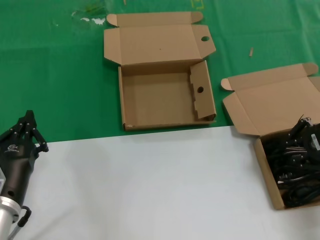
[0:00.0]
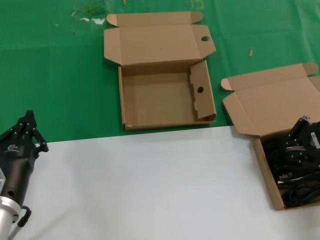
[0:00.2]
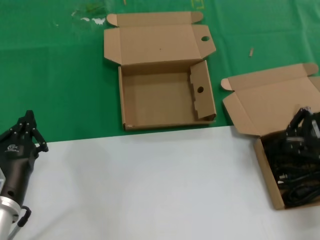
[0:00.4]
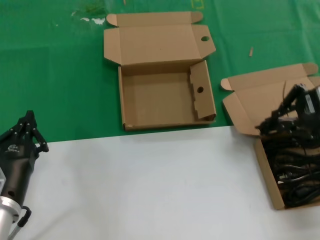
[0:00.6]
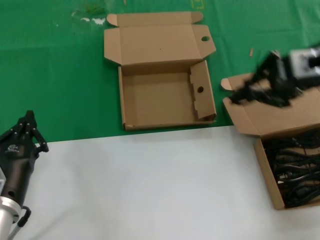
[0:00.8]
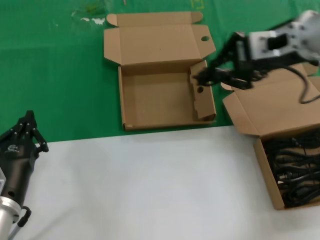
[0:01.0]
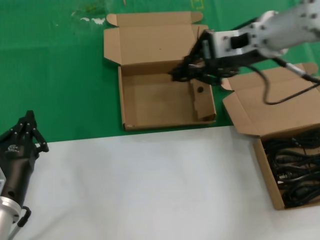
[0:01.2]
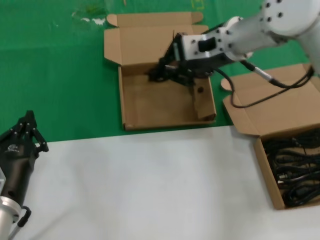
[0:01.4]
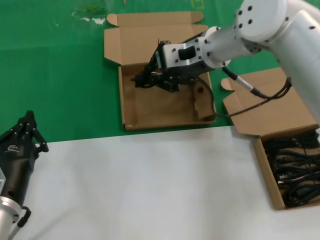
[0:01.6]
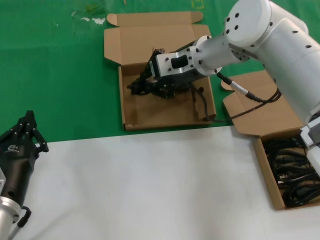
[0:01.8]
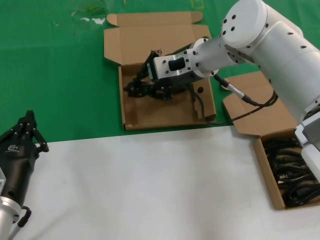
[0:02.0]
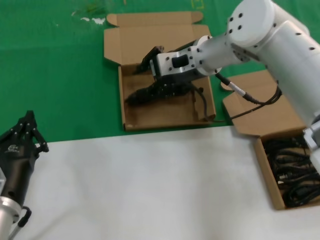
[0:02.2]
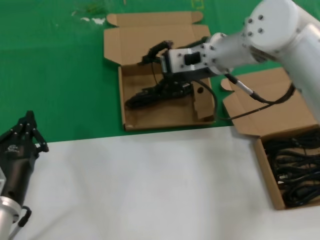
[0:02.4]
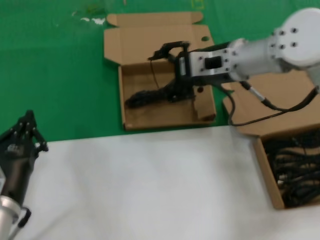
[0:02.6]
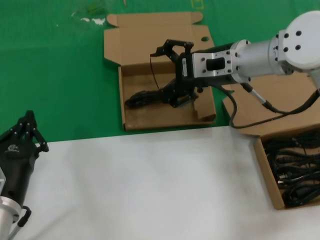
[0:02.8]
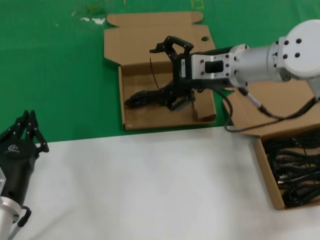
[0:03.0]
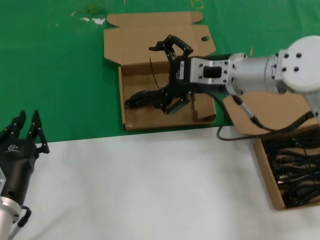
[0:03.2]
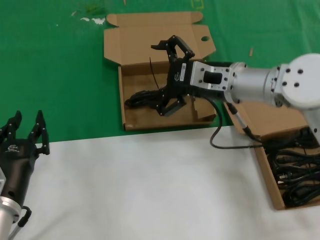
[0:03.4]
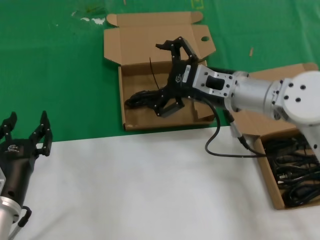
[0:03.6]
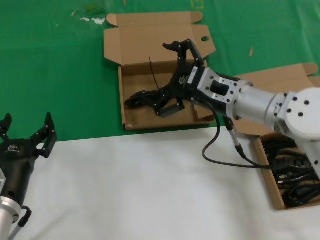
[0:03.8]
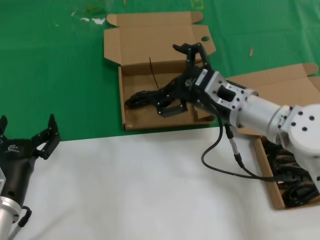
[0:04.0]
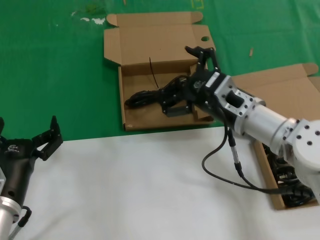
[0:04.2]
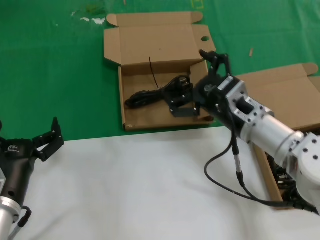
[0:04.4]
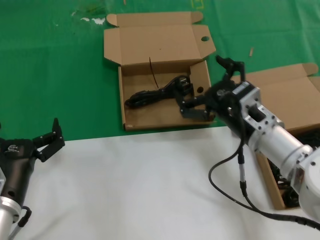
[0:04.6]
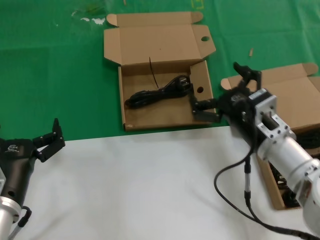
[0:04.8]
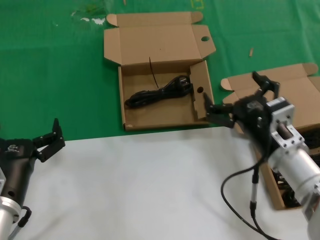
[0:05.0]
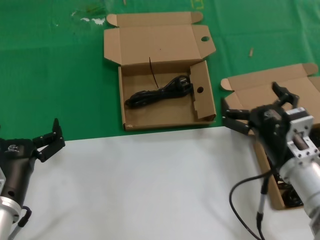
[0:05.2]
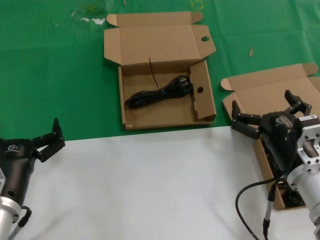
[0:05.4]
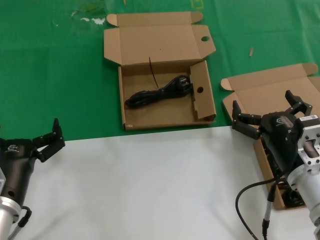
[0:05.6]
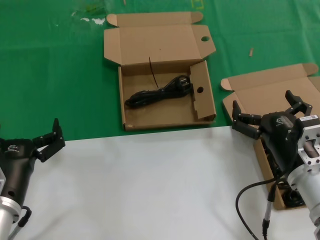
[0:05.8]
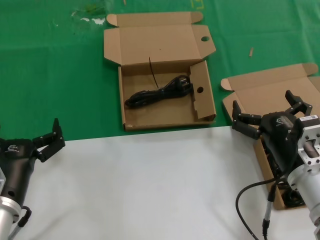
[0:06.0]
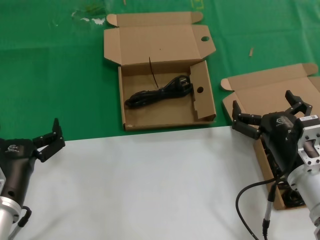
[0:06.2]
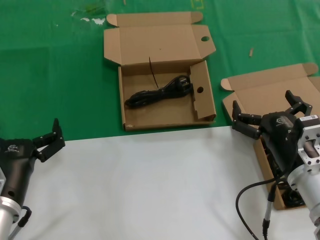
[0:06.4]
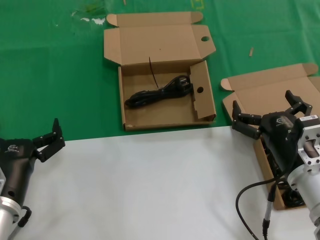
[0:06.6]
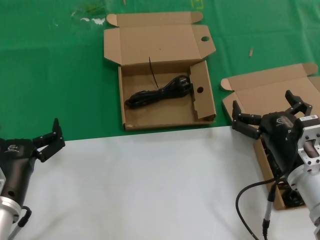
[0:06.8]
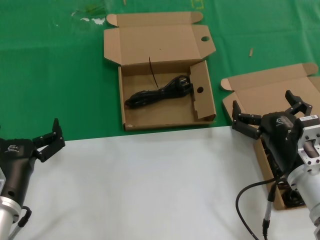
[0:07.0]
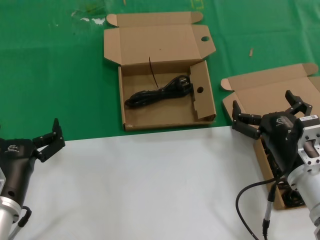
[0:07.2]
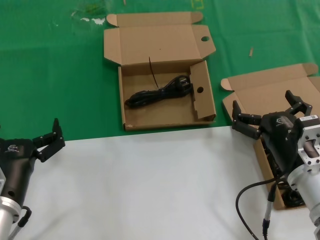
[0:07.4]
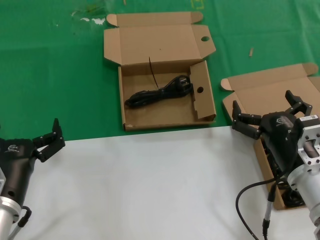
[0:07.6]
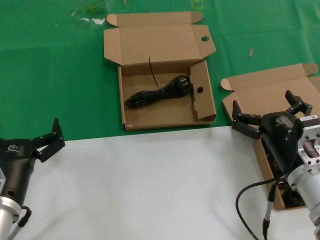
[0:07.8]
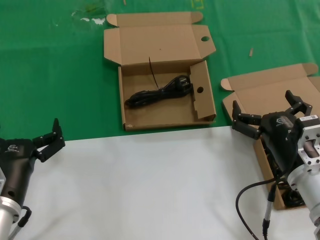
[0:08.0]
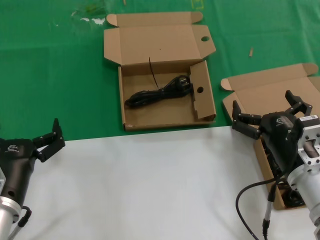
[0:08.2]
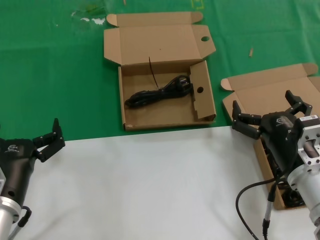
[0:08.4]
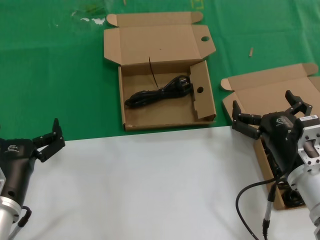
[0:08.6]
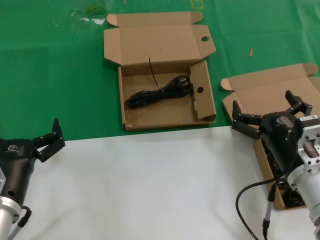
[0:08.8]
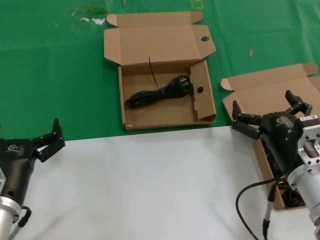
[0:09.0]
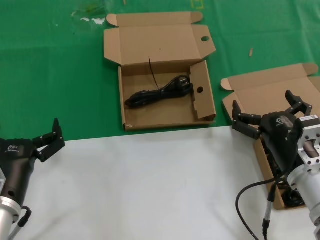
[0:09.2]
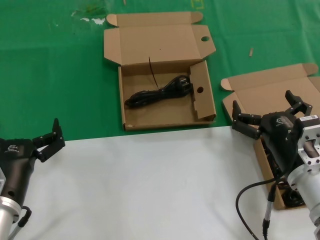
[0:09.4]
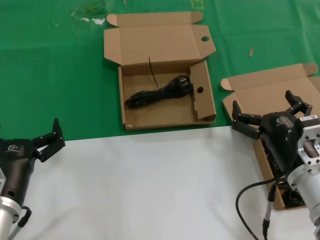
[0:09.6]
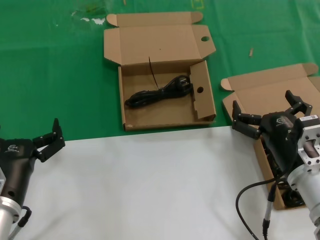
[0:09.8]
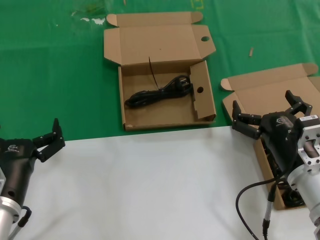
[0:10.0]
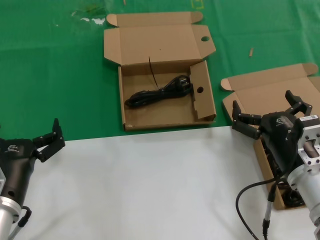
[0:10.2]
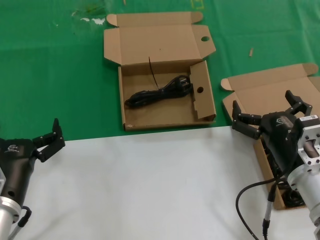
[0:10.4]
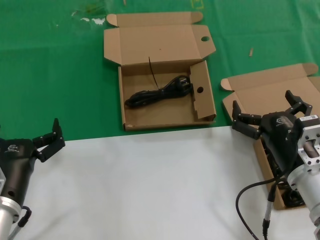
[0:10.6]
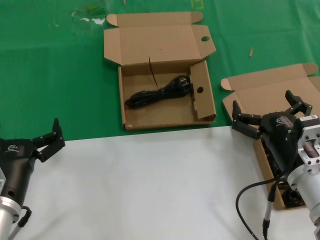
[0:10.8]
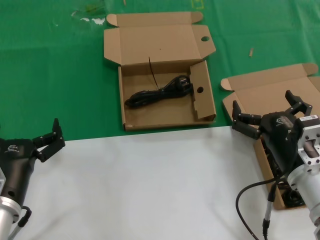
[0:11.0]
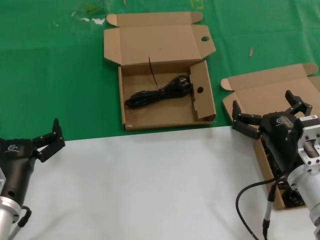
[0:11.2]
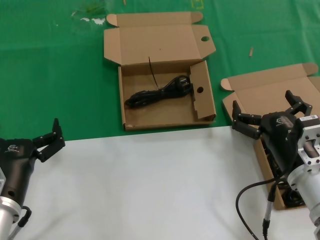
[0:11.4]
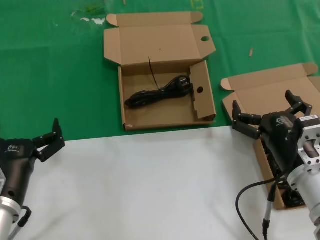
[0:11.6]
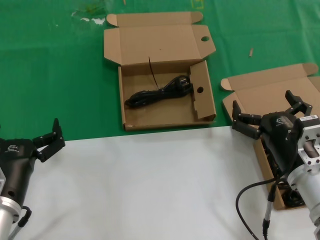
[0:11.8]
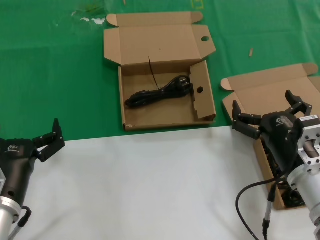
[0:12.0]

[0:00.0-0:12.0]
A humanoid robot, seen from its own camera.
Task of the whole recording: take the parts from the box containing them and put them into an empty box.
Step, 0:00.2 to 0:02.2: Place the data cable in the another box.
0:00.0 to 0:01.6: The right hand shifts about 30 cm to the left and forward.
0:01.6 to 0:03.0: The right hand ends up approximately 5 cm from where it was.
0:03.0 to 0:04.4: The right hand shifts some 15 cm downward and backward.
0:04.4 to 0:06.0: The right hand heads backward and downward, covering approximately 10 cm.
0:06.0 to 0:12.0: Neither hand changes place.

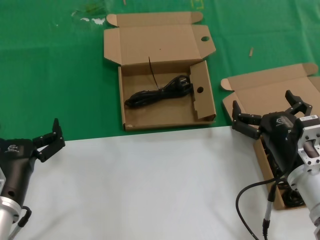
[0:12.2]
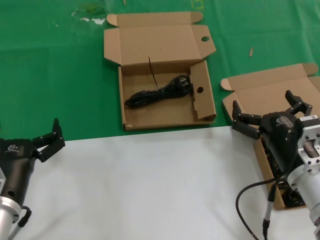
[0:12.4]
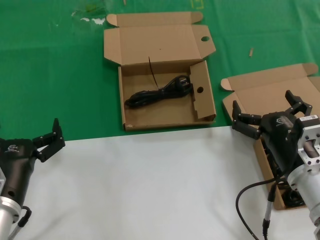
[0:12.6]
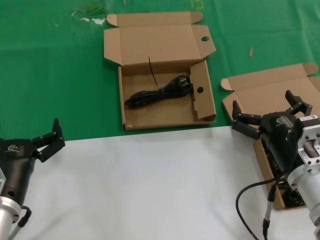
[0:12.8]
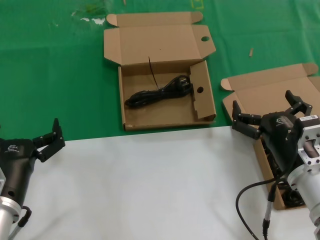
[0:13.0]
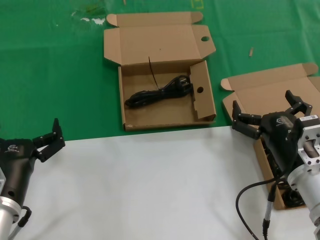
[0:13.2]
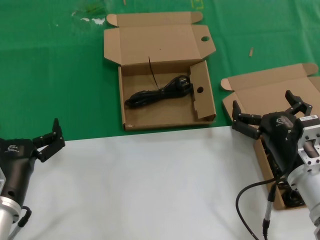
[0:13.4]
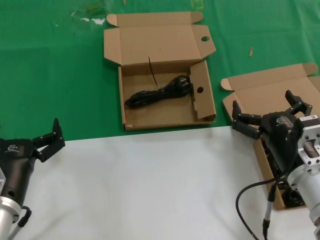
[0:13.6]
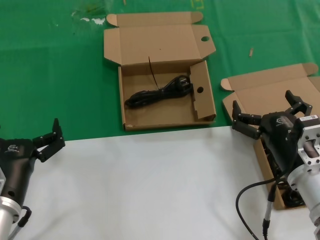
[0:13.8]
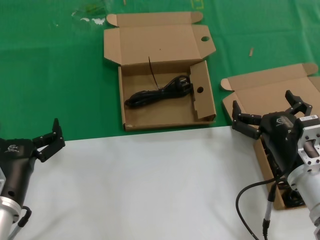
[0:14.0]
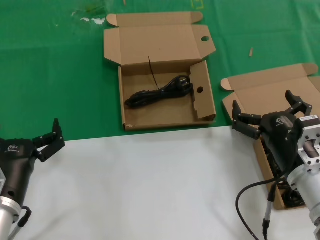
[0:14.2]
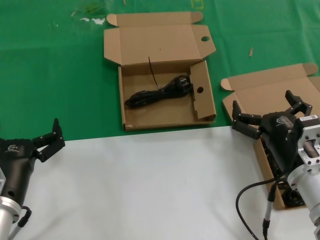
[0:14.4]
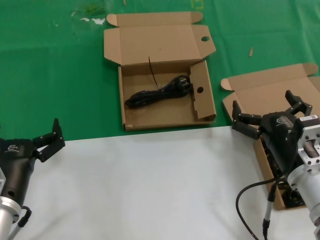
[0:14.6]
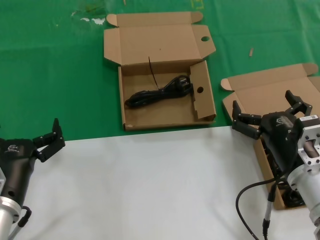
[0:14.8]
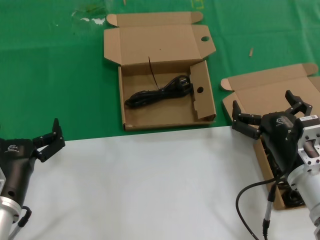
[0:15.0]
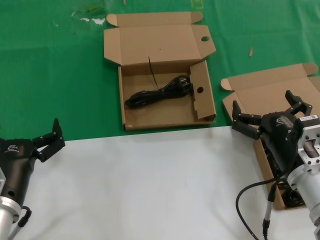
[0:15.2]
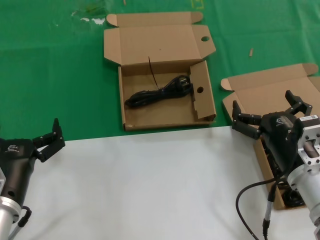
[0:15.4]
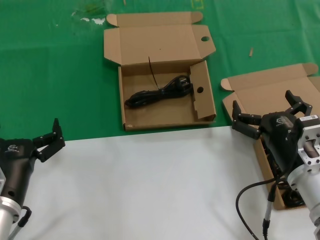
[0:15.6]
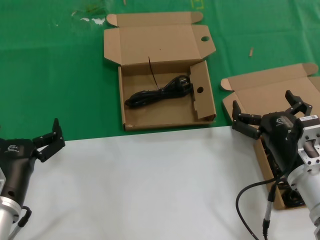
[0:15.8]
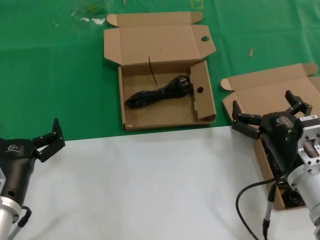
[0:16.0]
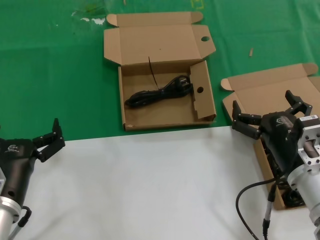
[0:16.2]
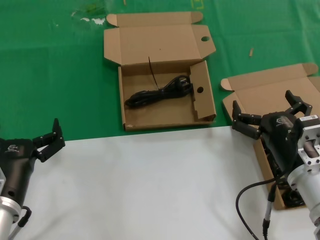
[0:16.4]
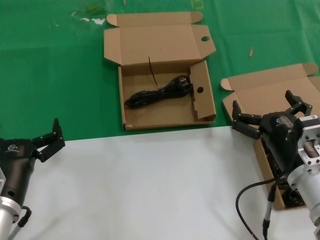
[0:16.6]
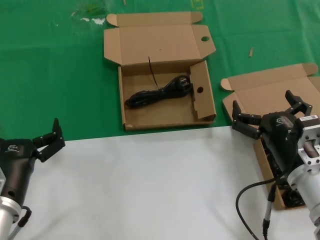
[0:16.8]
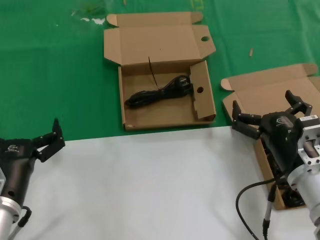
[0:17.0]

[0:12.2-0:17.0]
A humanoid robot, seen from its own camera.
Task of the whole recording: take the parts from the box containing them and put them into an empty box.
0:12.2 to 0:17.0: Both hands stay put.

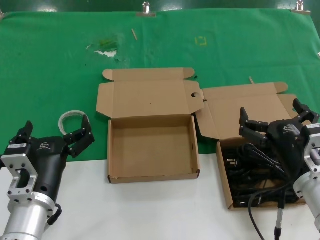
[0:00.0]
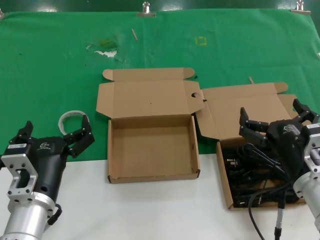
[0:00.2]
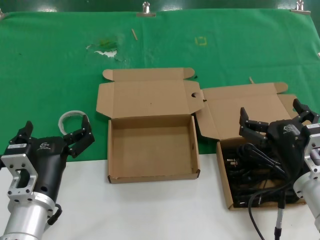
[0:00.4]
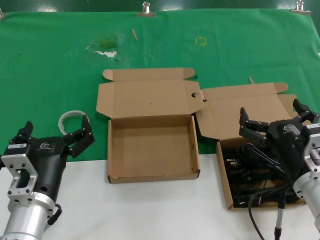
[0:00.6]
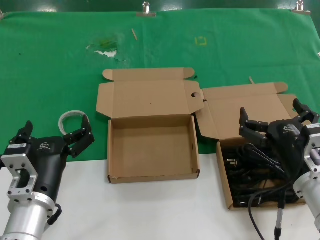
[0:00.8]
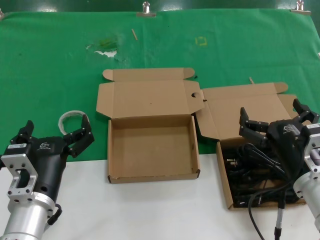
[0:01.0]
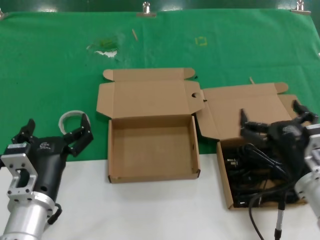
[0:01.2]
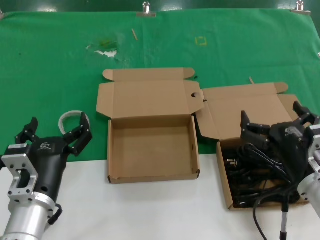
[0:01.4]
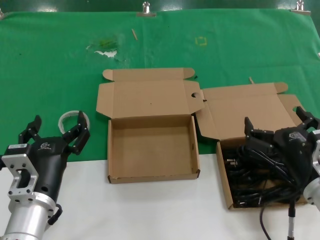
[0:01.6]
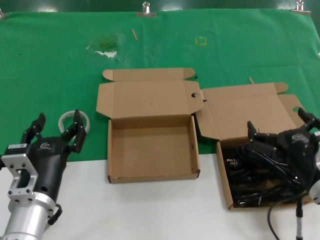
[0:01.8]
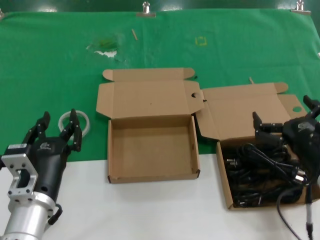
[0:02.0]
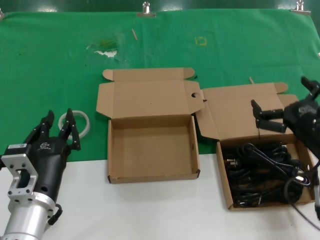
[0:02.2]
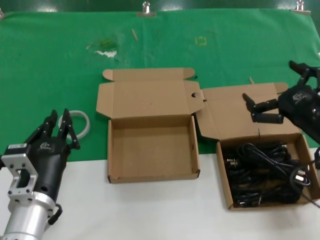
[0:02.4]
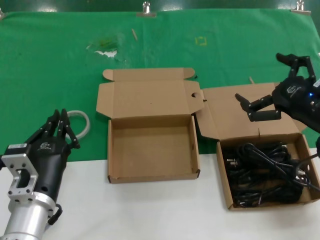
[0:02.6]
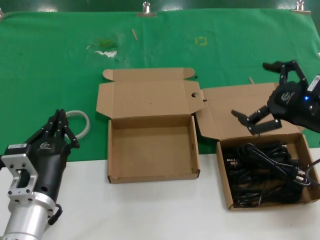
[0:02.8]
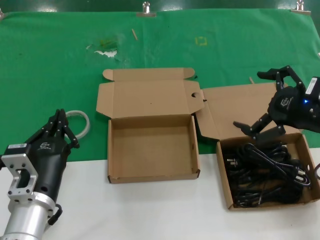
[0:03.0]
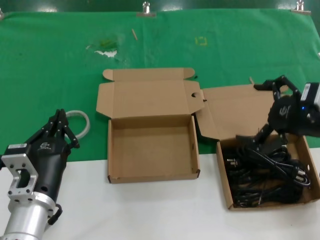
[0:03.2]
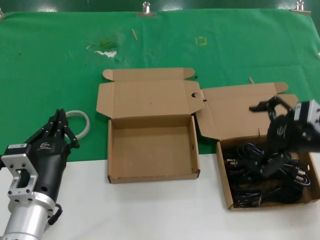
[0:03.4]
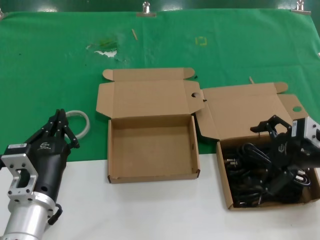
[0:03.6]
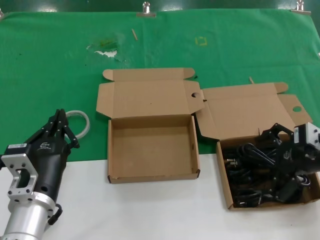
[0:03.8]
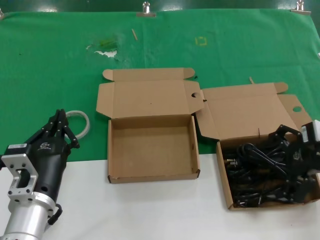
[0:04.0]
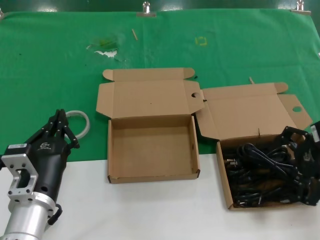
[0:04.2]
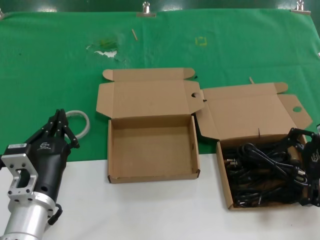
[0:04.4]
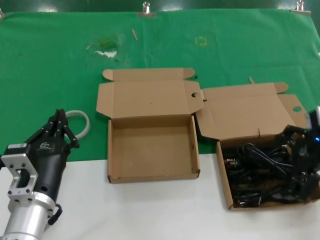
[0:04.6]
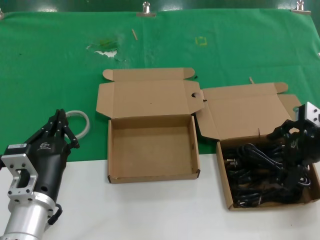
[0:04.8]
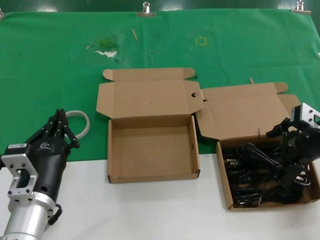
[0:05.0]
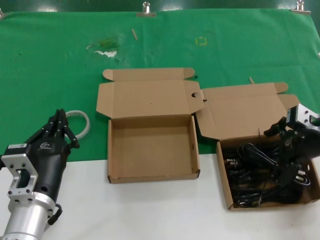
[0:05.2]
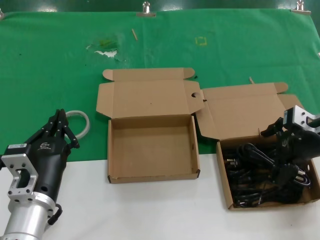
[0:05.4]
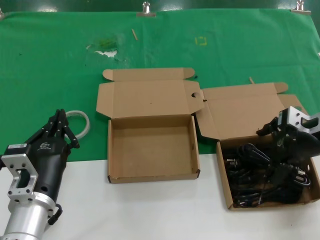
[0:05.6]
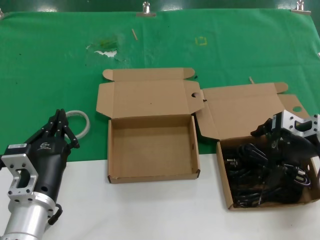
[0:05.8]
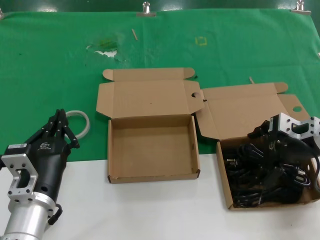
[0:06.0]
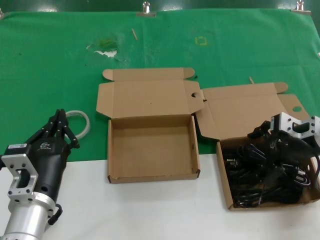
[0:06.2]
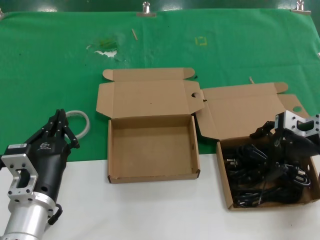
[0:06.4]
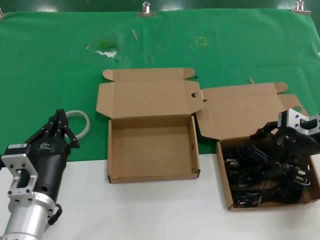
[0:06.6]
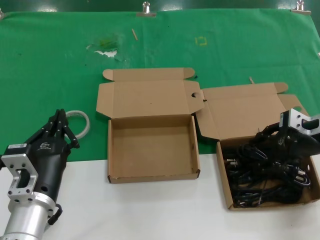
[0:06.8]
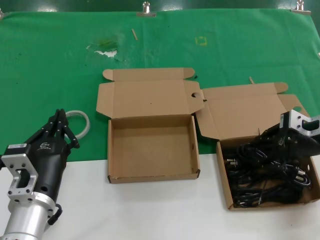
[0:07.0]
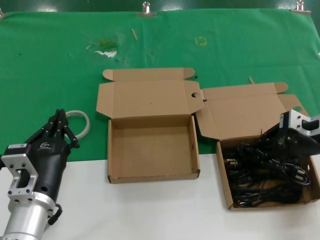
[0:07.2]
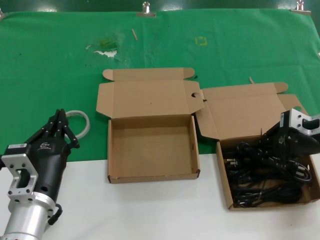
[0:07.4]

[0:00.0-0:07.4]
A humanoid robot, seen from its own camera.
Task of the whole recording: take the parts from the box containing them and put them into an empty box.
Step, 0:00.0 to 0:07.2: Grasp the data cable.
0:00.0 to 0:01.4: The two hands keep their place.
0:01.4 to 0:03.0: The right hand is displaced upward, to the right and forward by some 20 cm.
0:04.4 to 0:06.0: The right hand is displaced downward by approximately 5 cm.
0:06.0 to 0:07.4: The hands stay close to where they were, moving slightly.
